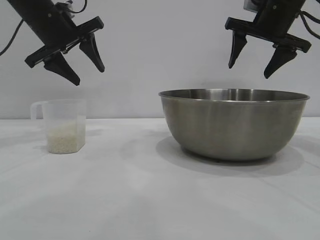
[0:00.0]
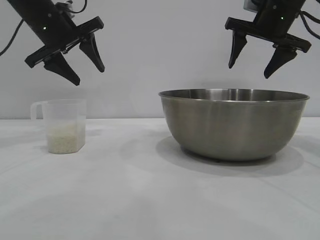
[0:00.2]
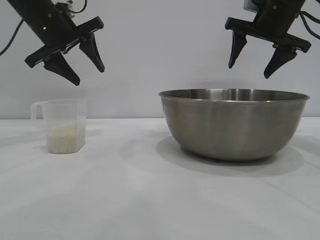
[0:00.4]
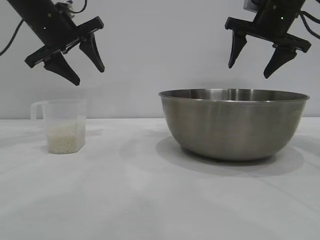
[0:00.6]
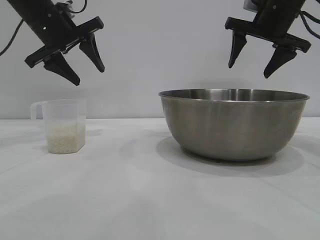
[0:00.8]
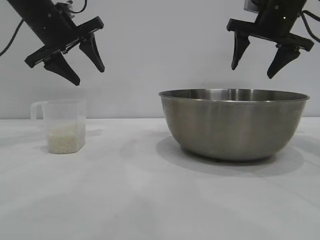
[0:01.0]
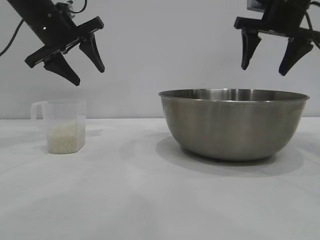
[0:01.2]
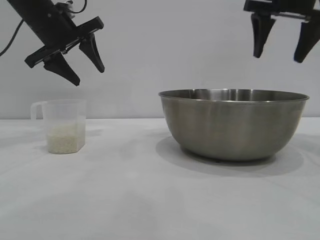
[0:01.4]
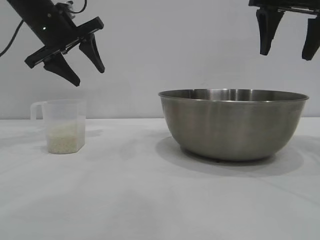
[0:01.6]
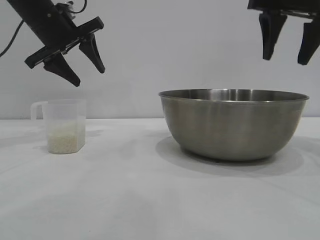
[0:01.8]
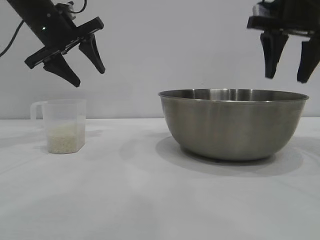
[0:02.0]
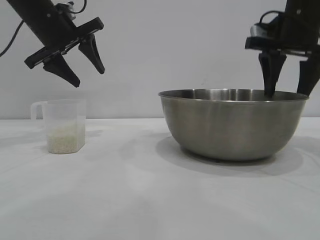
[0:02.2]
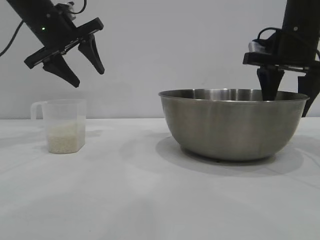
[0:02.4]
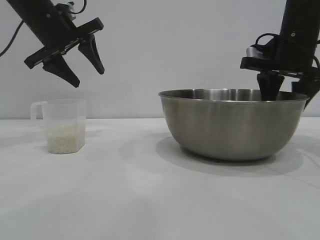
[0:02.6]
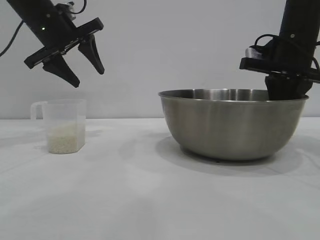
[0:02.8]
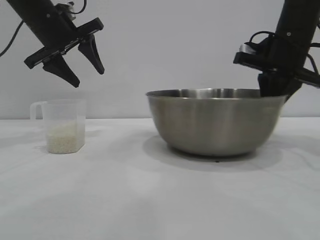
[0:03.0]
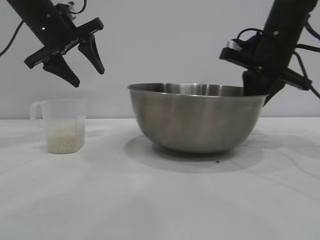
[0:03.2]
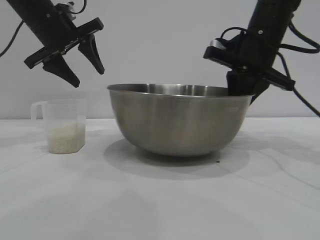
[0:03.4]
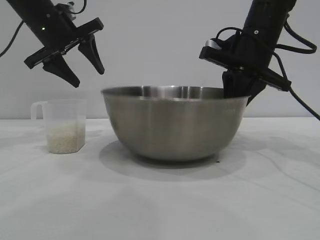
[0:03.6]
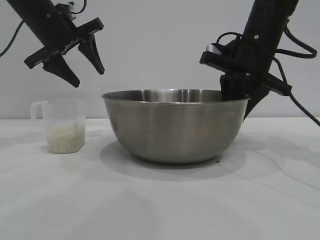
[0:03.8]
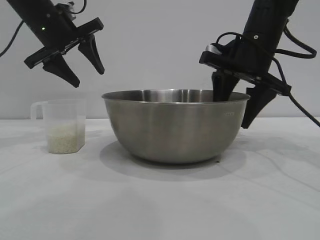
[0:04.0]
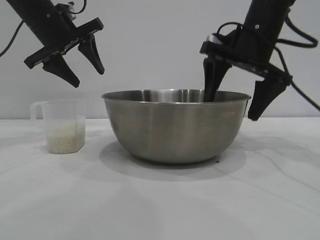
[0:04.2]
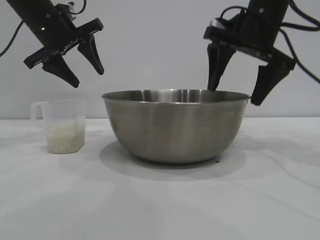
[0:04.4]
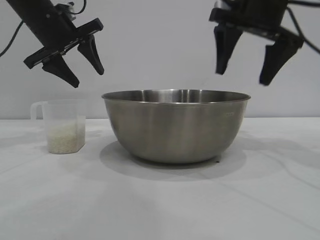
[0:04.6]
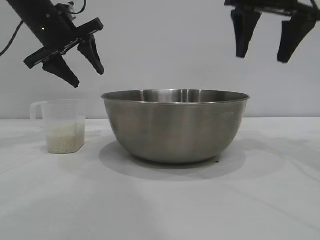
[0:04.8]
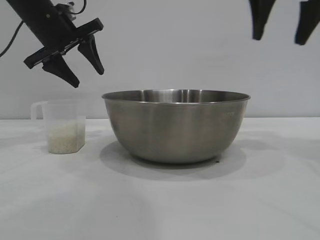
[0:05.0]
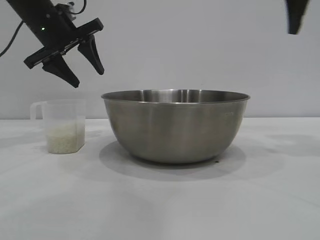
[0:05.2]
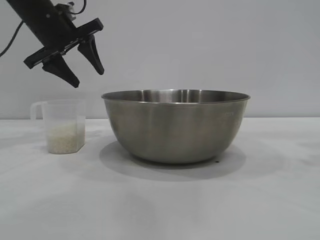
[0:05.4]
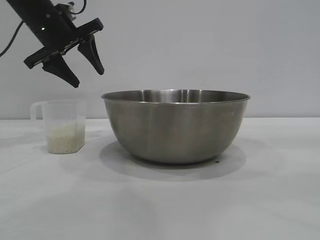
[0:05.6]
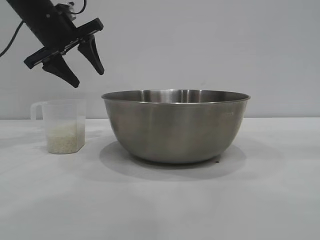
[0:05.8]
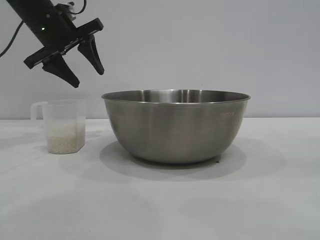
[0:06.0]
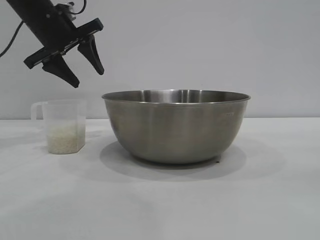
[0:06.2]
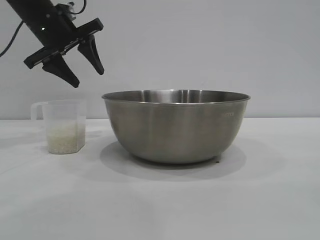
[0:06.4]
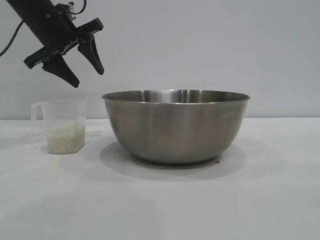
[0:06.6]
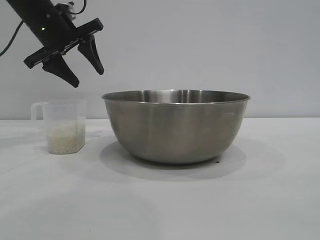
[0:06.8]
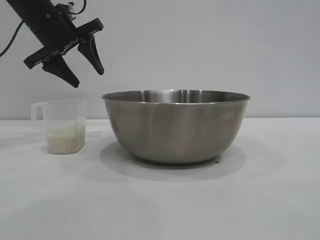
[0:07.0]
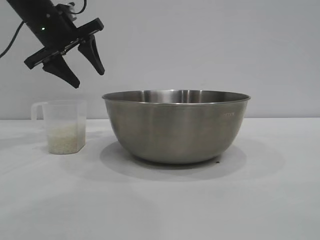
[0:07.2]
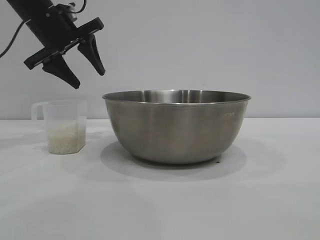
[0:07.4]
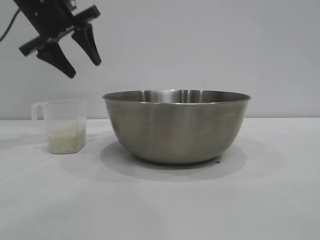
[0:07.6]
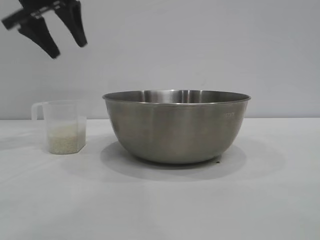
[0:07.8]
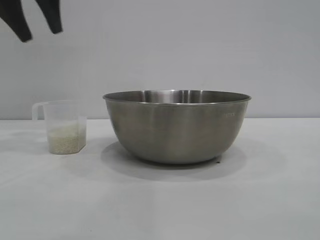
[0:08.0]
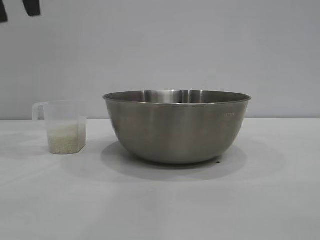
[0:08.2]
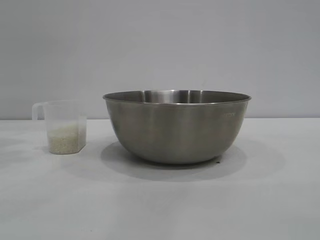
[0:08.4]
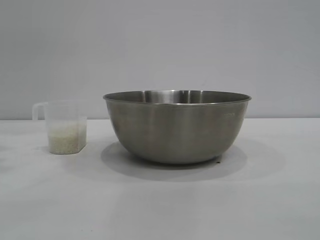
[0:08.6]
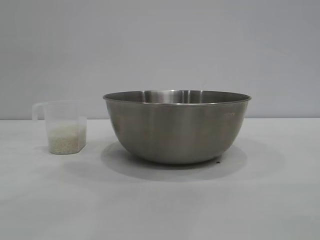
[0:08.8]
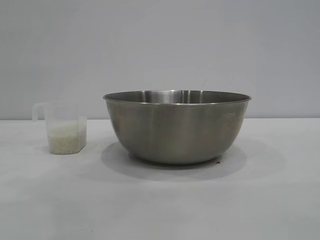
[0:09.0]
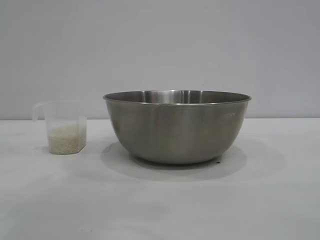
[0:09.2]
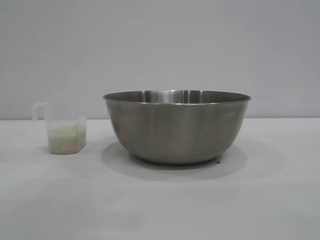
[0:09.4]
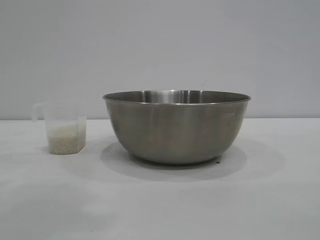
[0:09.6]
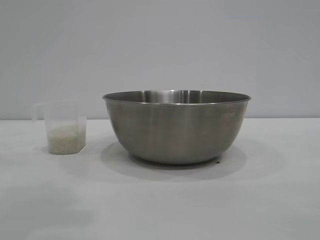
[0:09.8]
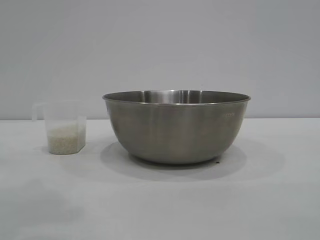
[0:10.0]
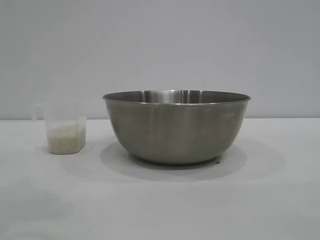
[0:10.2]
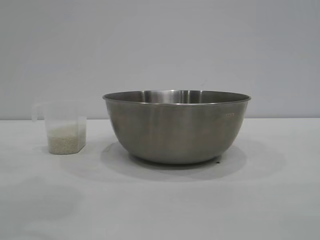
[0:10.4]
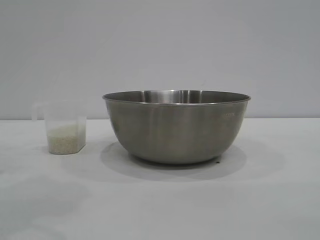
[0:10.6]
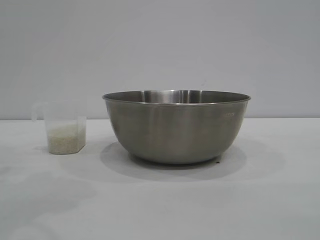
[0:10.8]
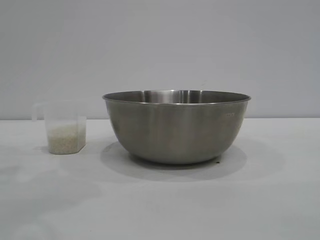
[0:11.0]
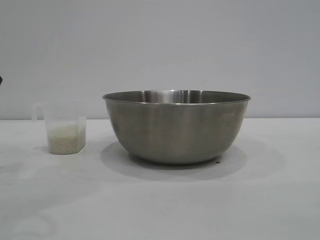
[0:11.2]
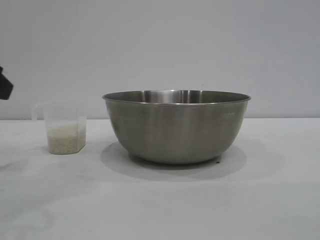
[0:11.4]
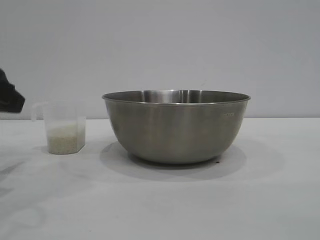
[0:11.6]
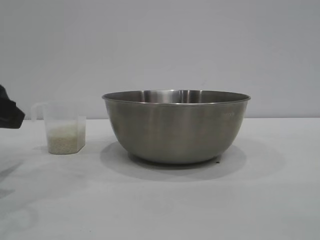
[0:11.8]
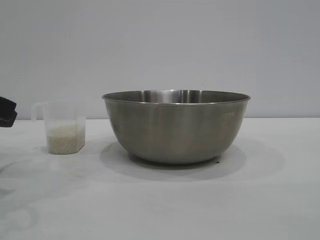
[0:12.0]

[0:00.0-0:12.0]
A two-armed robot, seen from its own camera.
Task of the whole recording: the right gripper grasp the rice container and place it in the center of the table, the left gripper grasp the rice scoop and pour the rice into the rice container.
Step, 0:00.0 to 0:04.6: Move the bowl to the center of view with the right gripper.

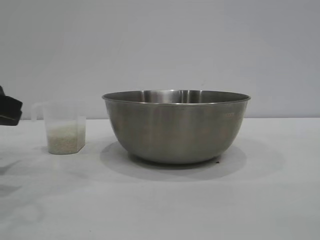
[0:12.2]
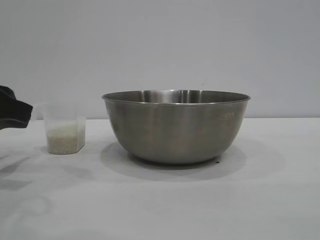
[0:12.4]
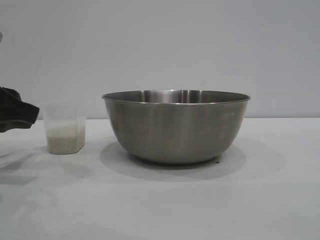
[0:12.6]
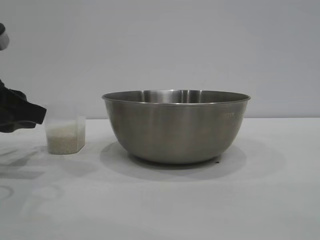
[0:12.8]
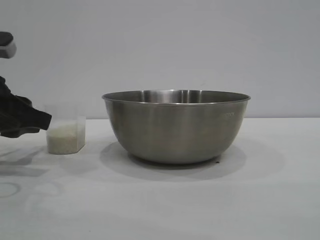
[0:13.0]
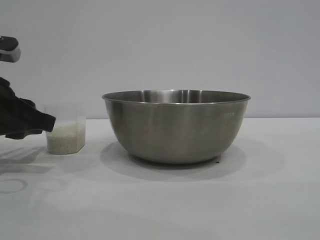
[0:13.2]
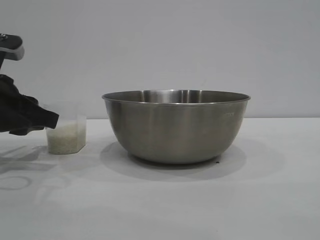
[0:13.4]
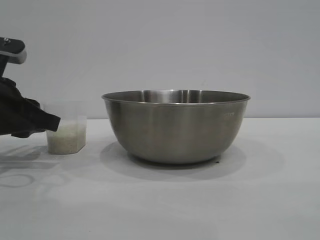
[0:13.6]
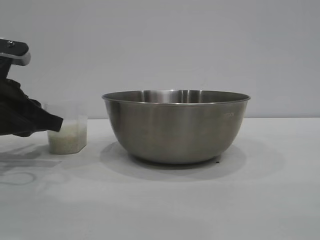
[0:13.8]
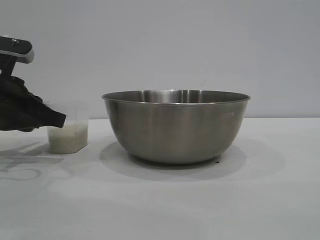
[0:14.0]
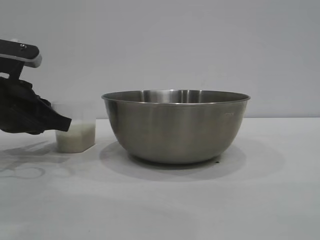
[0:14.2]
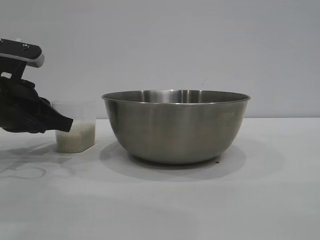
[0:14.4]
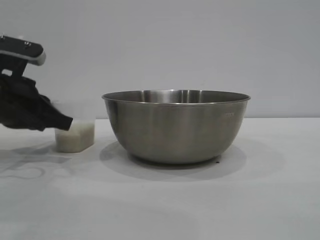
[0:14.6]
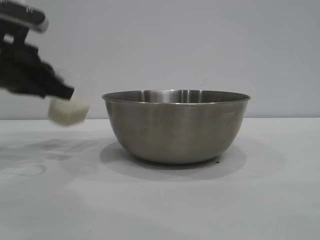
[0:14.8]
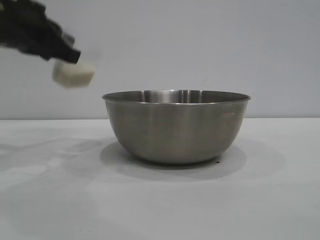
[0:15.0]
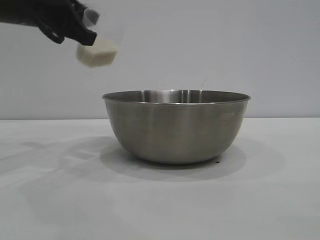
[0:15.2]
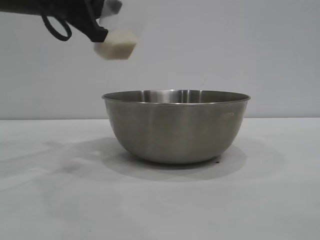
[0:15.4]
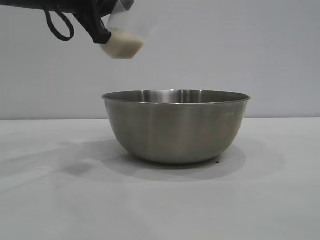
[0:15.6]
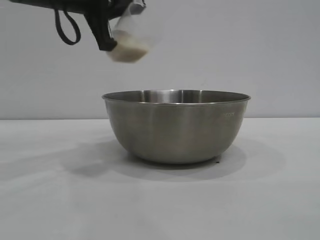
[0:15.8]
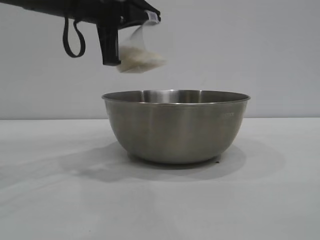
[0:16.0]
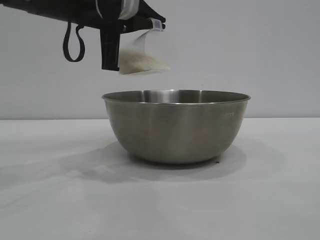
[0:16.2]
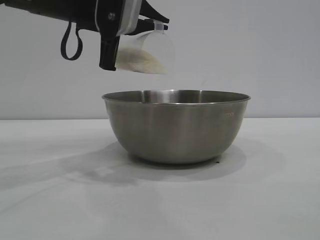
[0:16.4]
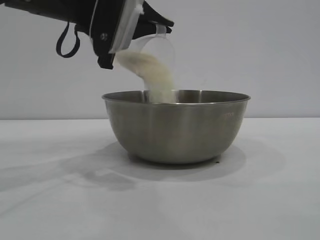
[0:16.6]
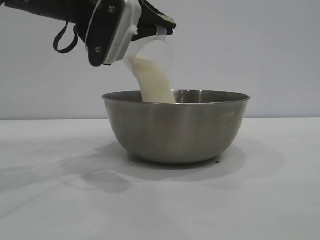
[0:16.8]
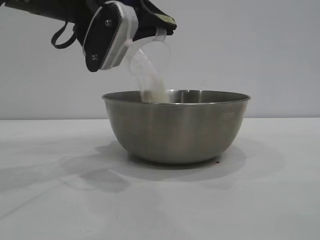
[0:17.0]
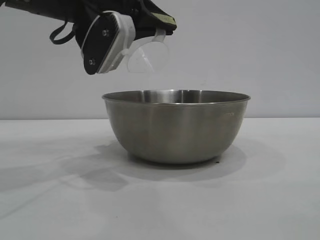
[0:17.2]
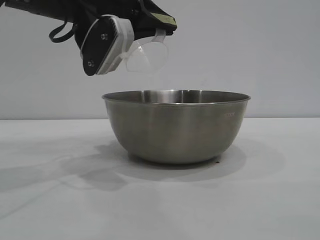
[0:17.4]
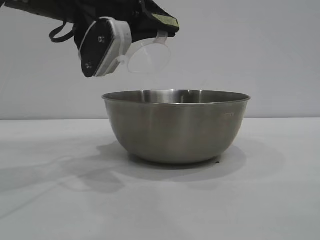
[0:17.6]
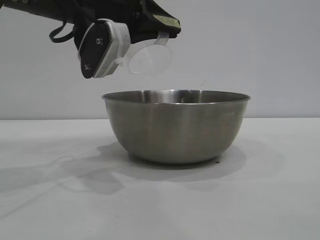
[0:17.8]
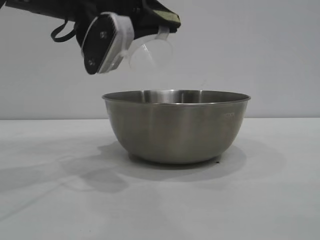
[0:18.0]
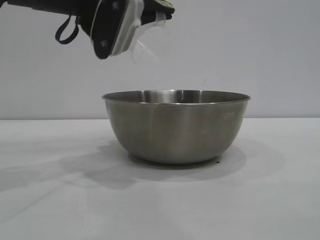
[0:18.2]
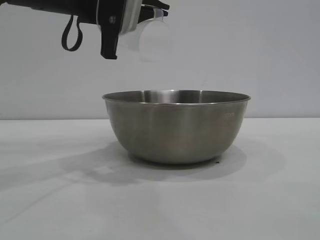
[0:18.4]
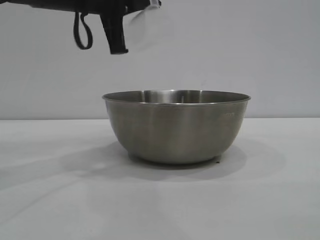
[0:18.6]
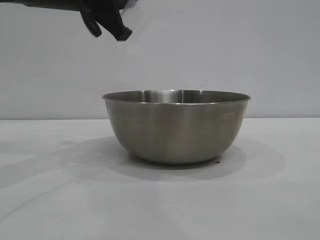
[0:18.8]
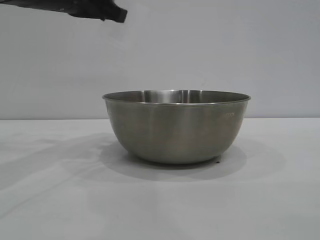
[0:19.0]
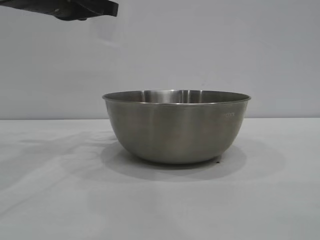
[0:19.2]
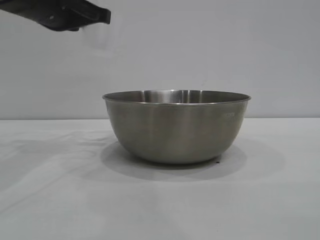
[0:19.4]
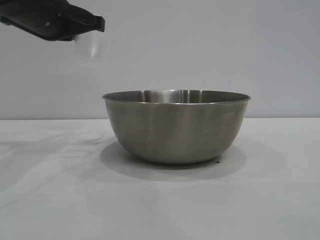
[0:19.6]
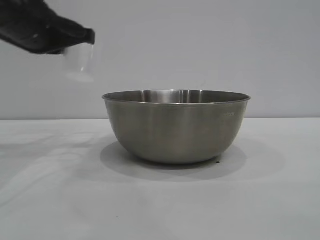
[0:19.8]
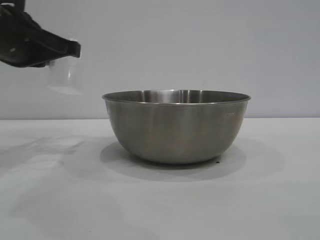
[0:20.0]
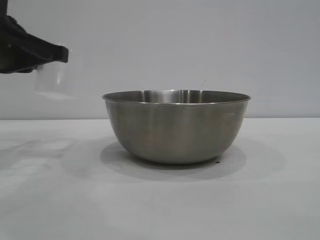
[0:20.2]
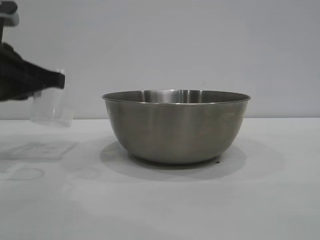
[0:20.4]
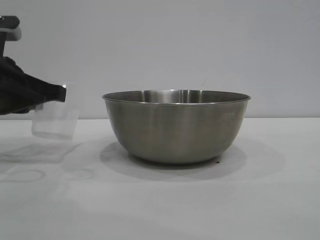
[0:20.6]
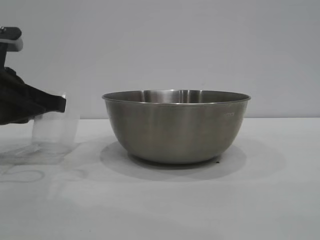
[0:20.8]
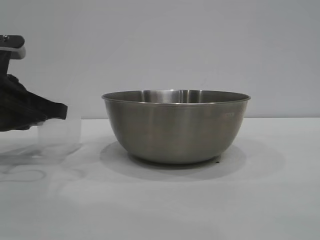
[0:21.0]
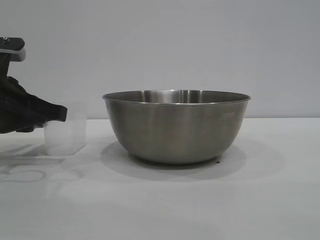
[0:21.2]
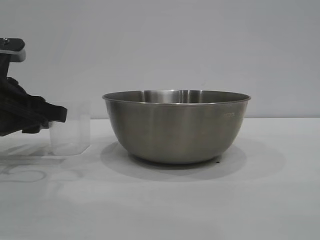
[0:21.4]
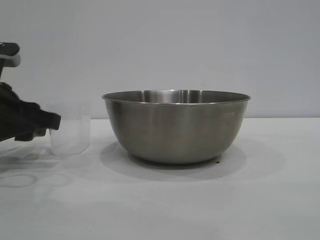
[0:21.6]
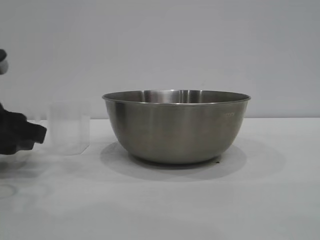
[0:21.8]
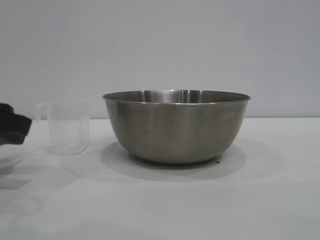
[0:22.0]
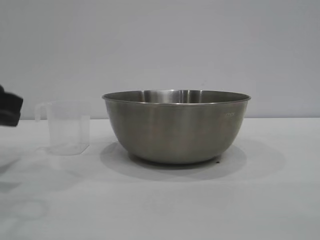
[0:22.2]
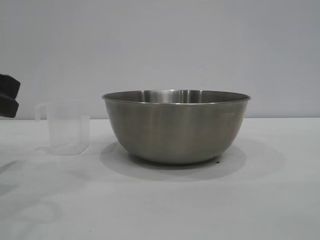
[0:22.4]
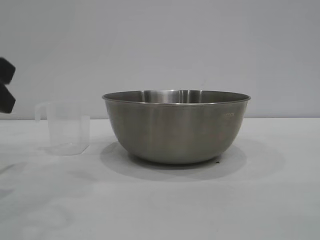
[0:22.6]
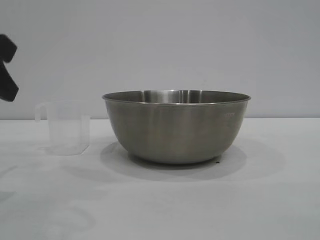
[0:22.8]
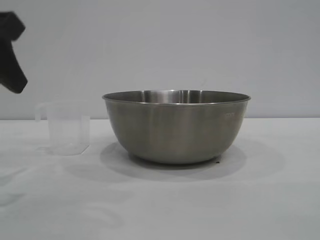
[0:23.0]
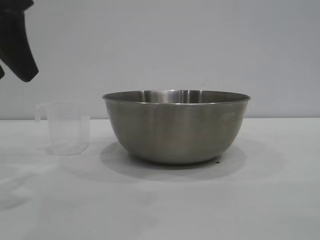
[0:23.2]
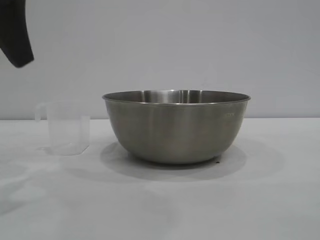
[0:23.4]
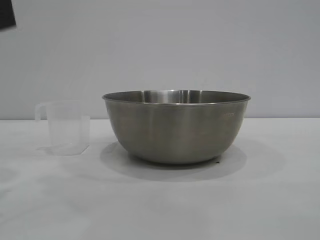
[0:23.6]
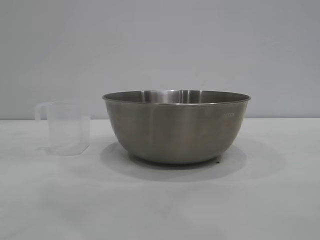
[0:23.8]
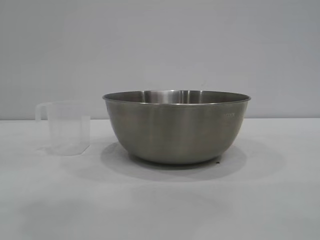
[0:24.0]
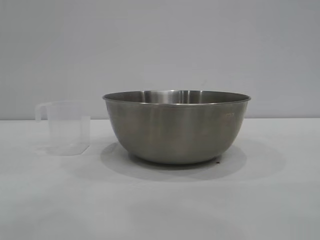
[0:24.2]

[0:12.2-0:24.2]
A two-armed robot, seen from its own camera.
Task of the whole recording: the right gripper grasp the rice container and place it in the center of the table, the left gripper grasp the rice scoop and pour the rice into the rice container.
Step, 0:12.2 to 0:14.8: Pick up the cup with rice in it with the left gripper.
Step, 0:15.0 to 0:18.2: Pour the rice from the cup into the bowl with the left gripper.
Step, 0:18.4 to 0:22.0: Place the cup on the table with the left gripper.
